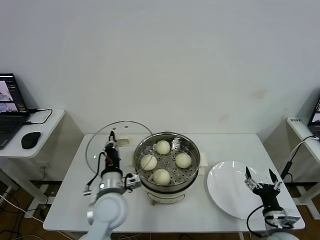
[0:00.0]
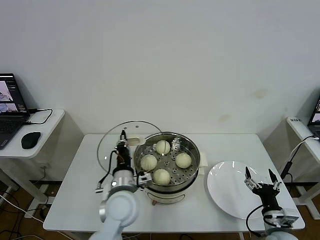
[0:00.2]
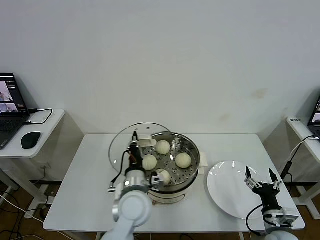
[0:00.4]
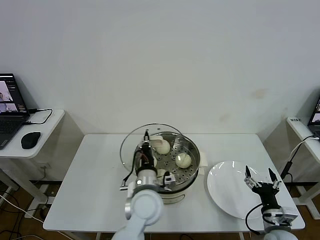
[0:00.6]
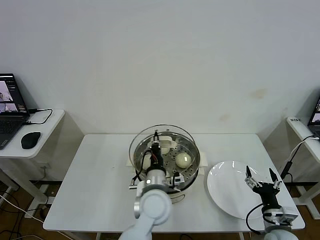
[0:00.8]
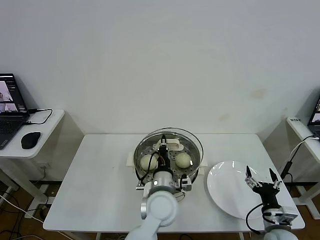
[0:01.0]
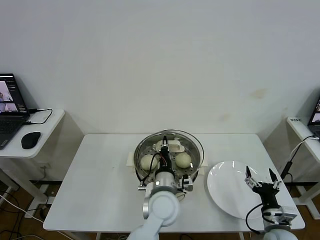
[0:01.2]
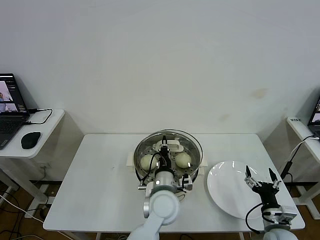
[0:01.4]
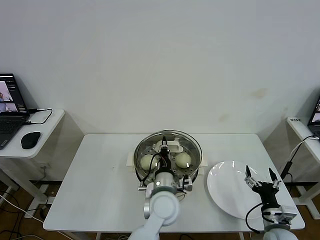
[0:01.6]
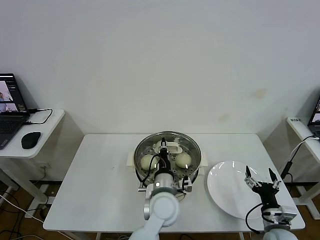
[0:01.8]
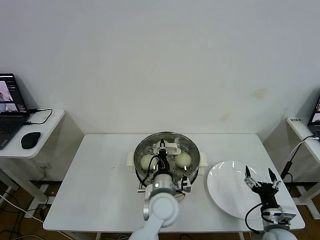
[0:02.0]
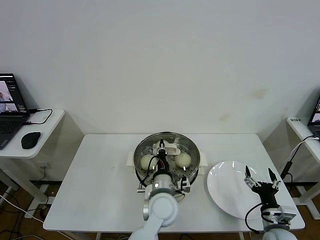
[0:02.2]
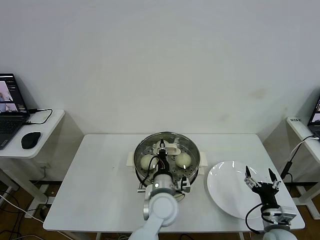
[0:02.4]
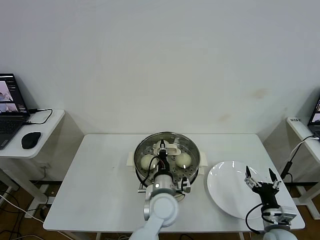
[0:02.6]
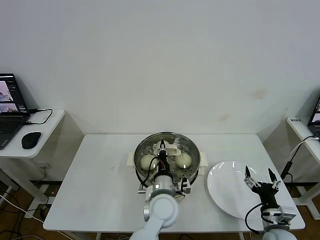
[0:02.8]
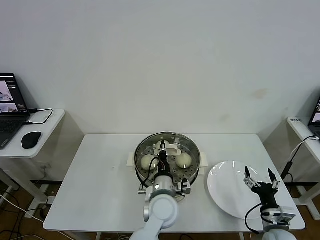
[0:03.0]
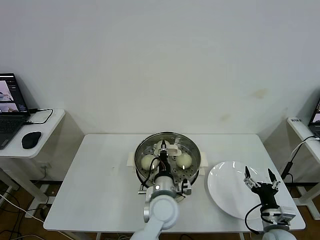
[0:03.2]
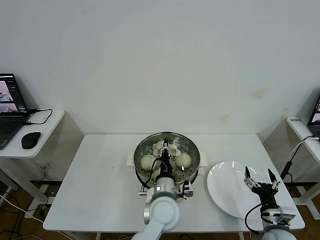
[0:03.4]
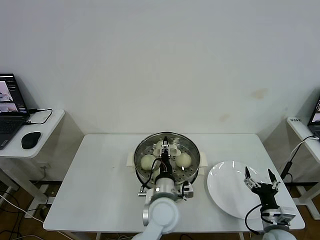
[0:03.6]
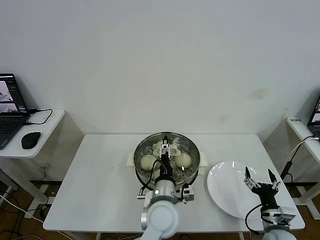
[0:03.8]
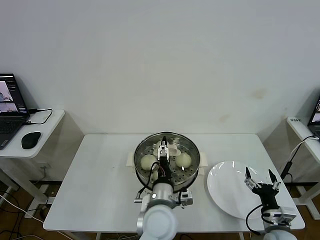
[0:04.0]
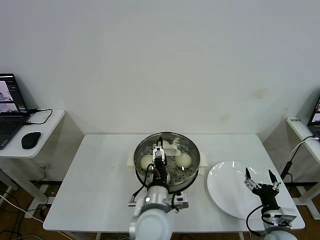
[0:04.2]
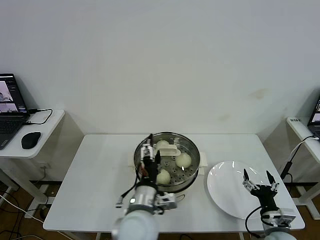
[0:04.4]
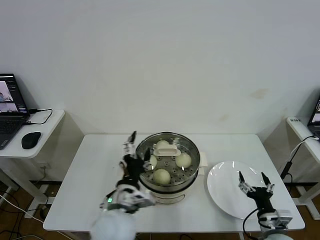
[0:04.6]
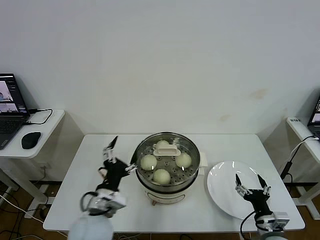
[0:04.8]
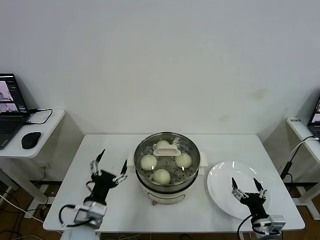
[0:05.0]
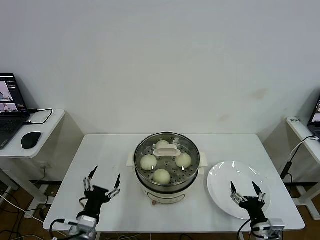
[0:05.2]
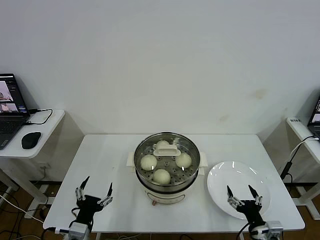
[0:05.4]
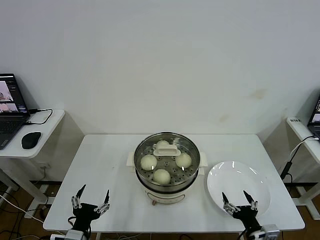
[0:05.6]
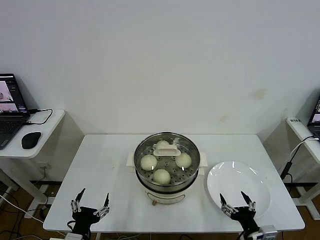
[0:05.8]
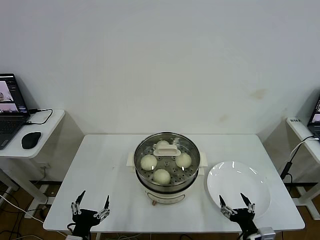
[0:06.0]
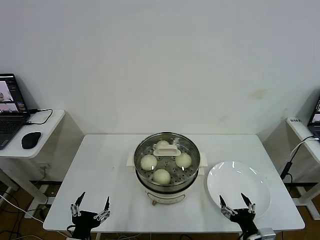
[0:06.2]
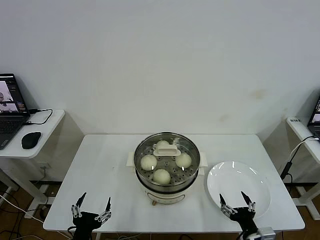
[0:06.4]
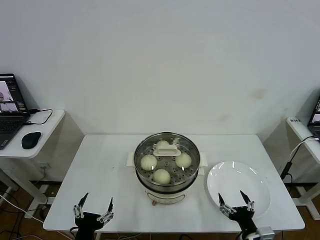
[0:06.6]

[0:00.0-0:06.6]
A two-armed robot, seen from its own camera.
Step, 0:00.0 to 0:03.4: Place the pot lid on the steamer with left gripper.
0:00.0 to 0:01.6: The left gripper is displaced to the right by some 15 cm.
0:01.6 to 0:03.2: There are only small adjustments of the grippers.
0:03.2 to 0:05.0: The left gripper heads to the left, covering about 20 cm, and opens up.
0:05.0 to 0:06.6: The left gripper heads backward, covering approximately 10 cm, while the right gripper shifts by about 5 cm.

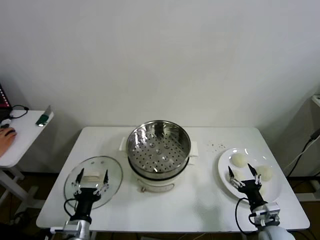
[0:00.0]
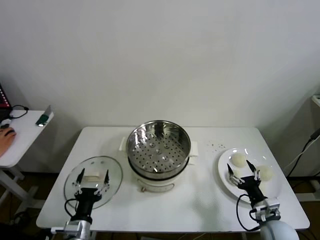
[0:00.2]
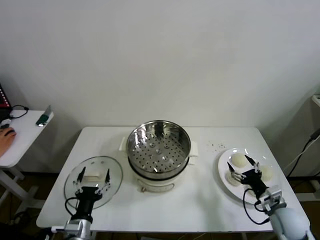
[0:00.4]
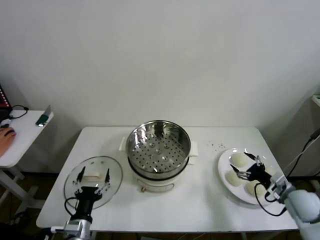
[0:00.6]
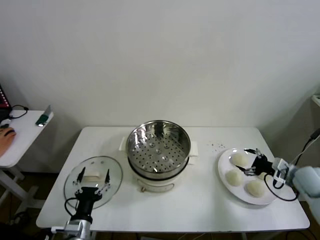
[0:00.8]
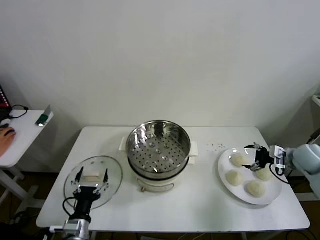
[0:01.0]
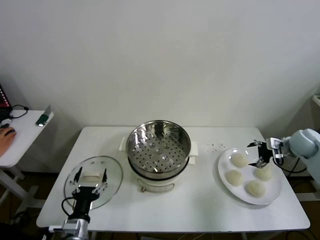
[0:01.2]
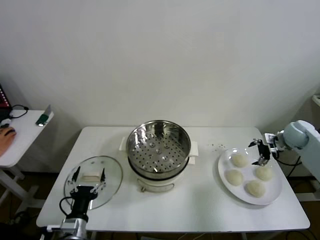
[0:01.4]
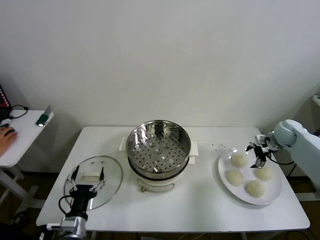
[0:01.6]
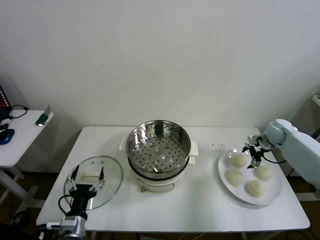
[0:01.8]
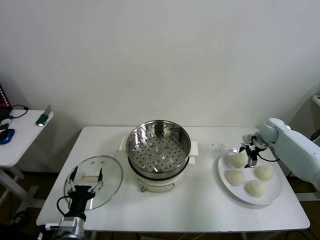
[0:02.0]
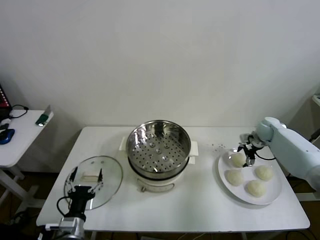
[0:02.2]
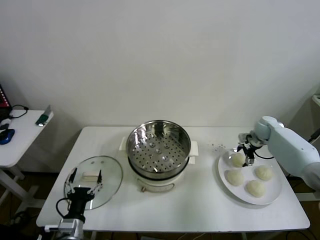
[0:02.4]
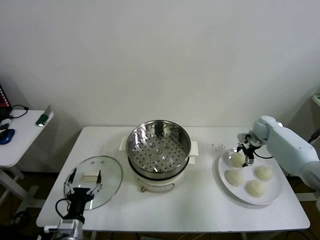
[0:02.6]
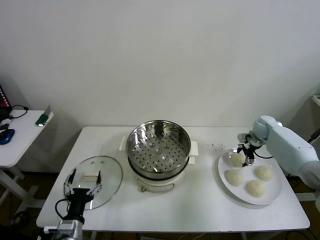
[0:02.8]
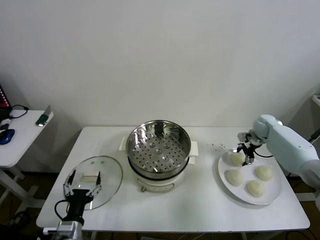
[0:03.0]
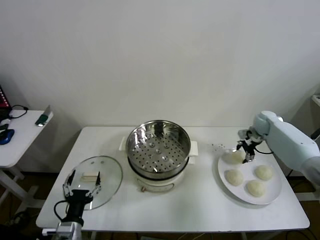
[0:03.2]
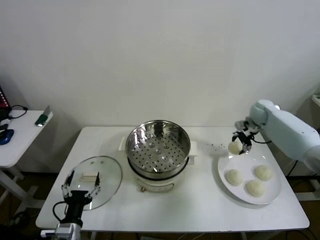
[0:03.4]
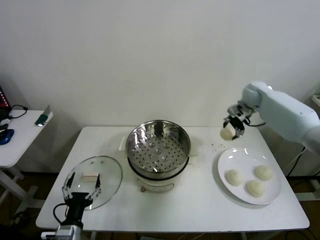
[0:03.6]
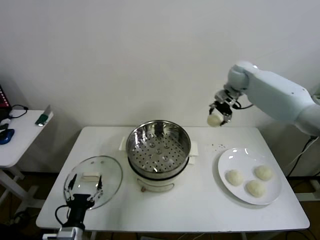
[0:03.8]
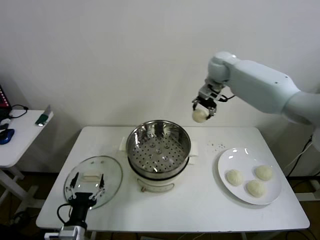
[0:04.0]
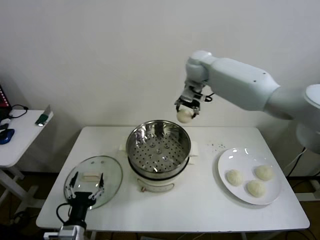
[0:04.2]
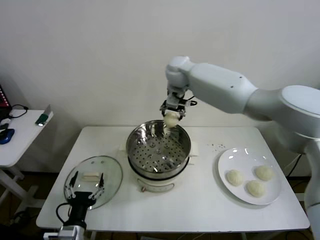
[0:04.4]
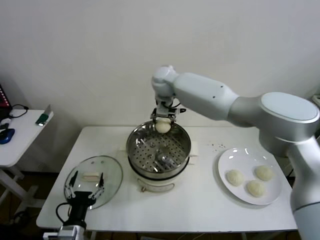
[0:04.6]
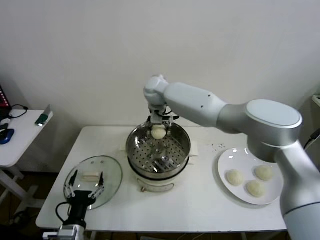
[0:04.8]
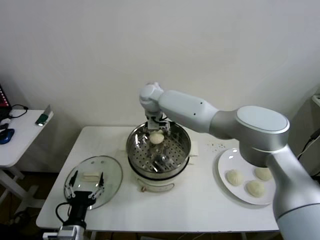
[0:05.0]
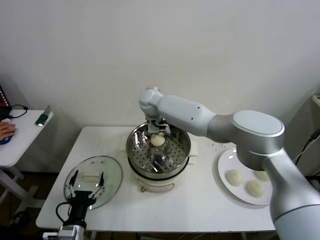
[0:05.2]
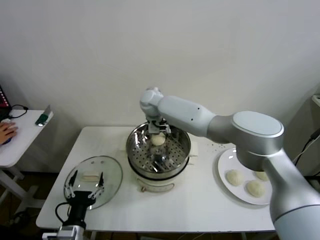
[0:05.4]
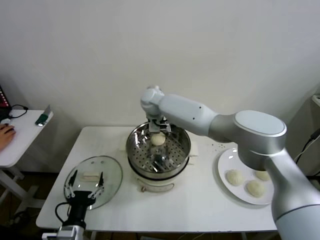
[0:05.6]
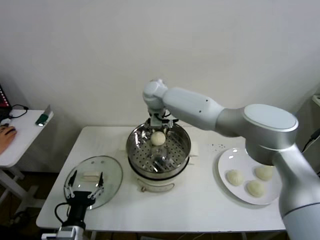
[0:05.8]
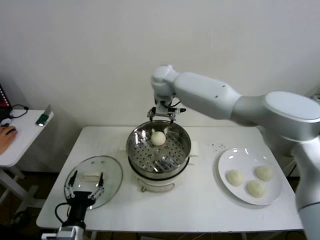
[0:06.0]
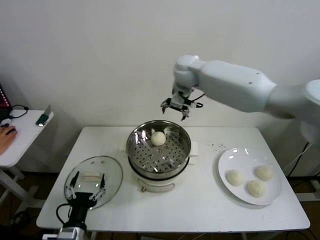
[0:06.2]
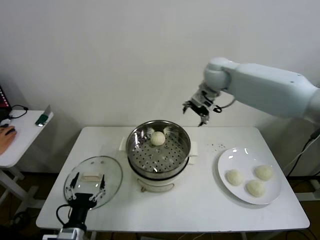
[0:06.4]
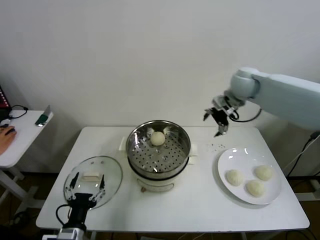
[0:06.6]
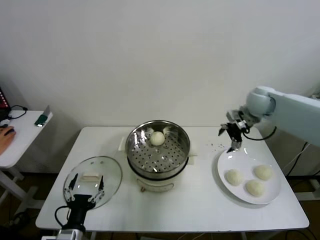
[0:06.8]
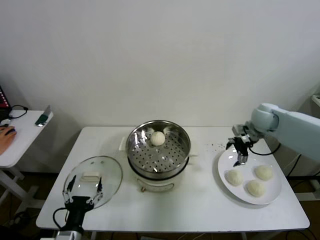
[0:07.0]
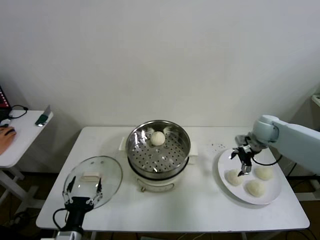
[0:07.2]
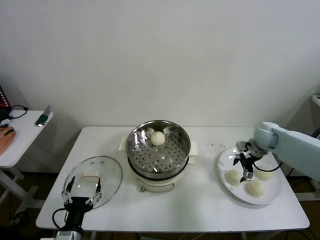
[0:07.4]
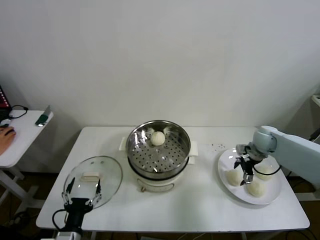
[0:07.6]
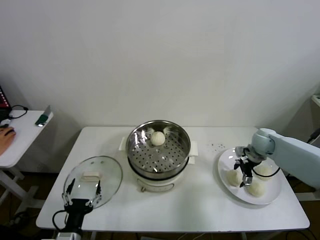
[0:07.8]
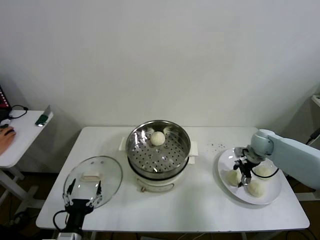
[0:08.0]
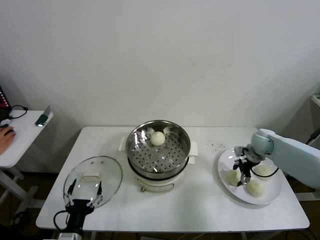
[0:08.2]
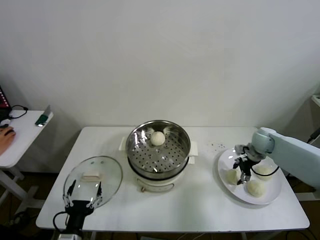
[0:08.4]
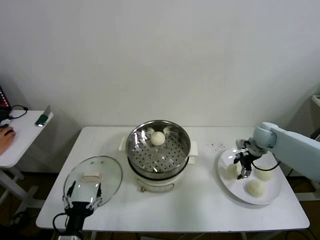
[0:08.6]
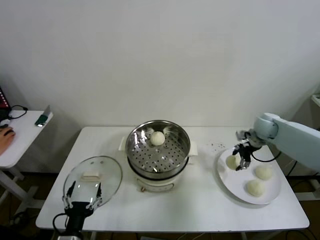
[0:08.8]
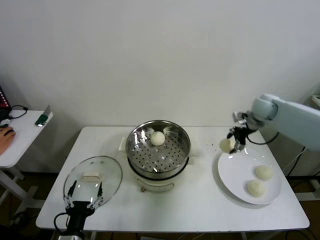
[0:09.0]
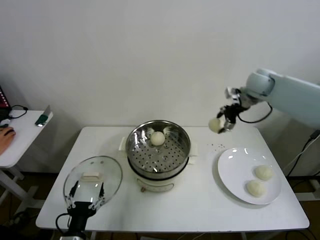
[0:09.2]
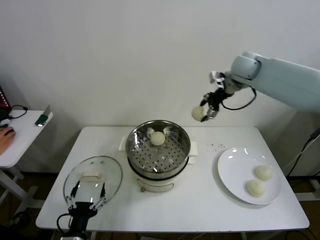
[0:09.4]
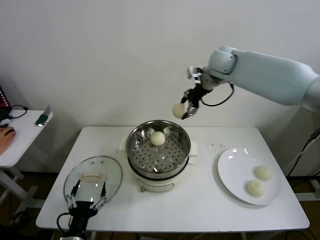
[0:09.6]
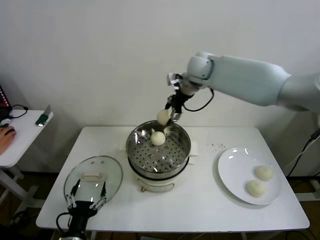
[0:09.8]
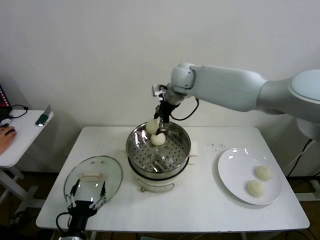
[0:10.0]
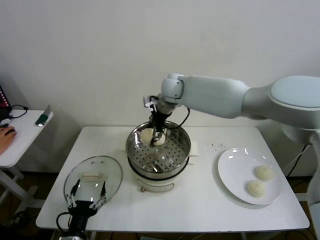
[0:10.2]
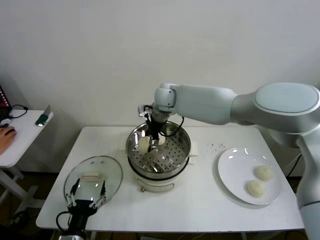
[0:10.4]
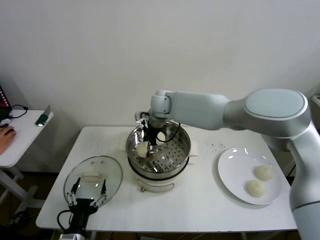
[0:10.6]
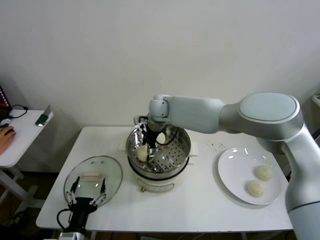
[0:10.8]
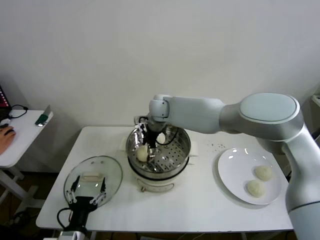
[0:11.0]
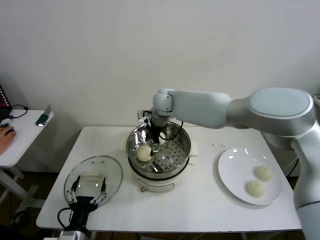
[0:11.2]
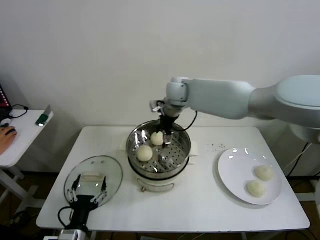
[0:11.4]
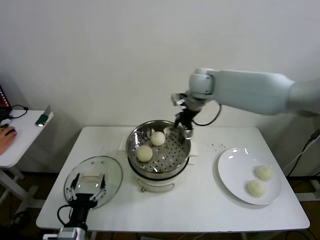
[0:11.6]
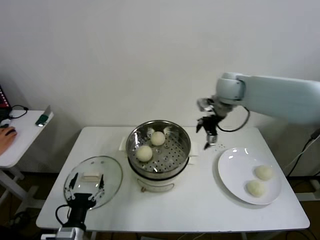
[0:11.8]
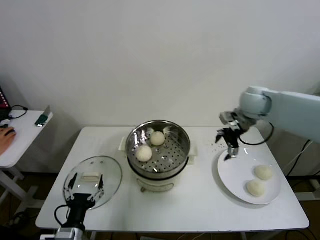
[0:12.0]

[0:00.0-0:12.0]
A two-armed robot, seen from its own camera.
Step, 0:00.0 to 0:02.8: Grasp the baozi in the plate with right gripper.
Step, 0:03.0 to 0:05.2: Place the baozi on the steamer with right gripper.
Step, 0:05.4 to 0:08.2: Grasp the baozi in the plate with right gripper.
Step, 0:08.4 to 0:10.8: Place the baozi on the steamer with right gripper.
0:01.6 to 0:03.0: The right gripper heads forward, covering about 5 cm, and closes its fingers.
0:03.0 to 0:04.4: The right gripper travels to the left and upward by roughly 50 cm.
0:04.4 to 0:06.0: The right gripper goes downward and returns, some 10 cm each way, and opens up.
0:06.0 to 0:07.6: The right gripper moves to the right and downward, roughly 40 cm.
0:07.6 to 0:09.0: The right gripper travels upward and forward by about 20 cm, and closes its fingers.
0:09.0 to 0:10.4: The right gripper heads to the left, covering about 35 cm.
0:10.4 to 0:12.0: The right gripper heads to the right, covering approximately 30 cm, and opens its fingers.

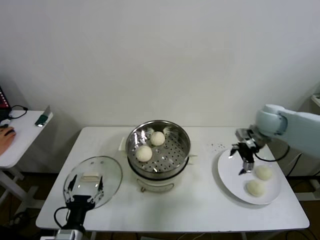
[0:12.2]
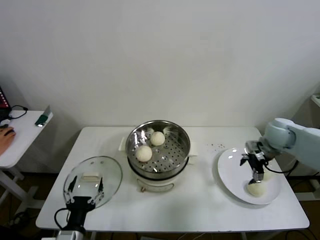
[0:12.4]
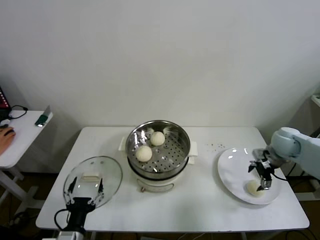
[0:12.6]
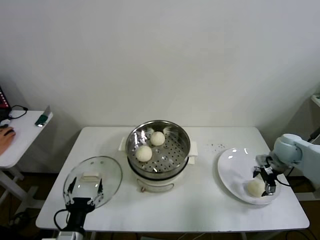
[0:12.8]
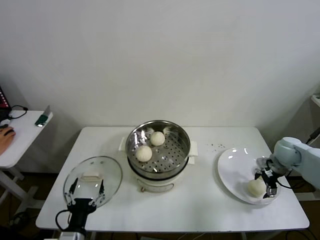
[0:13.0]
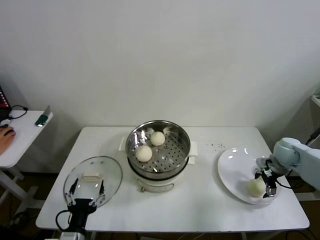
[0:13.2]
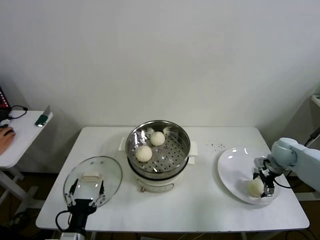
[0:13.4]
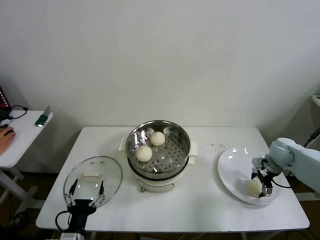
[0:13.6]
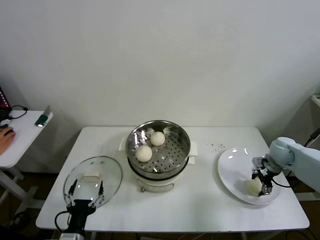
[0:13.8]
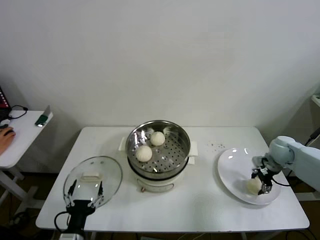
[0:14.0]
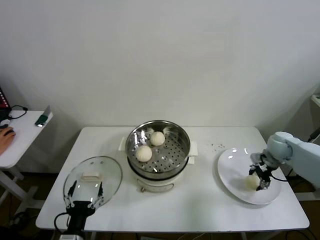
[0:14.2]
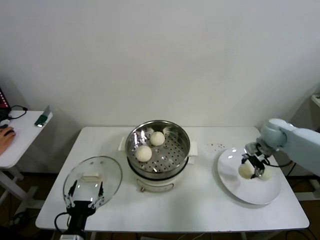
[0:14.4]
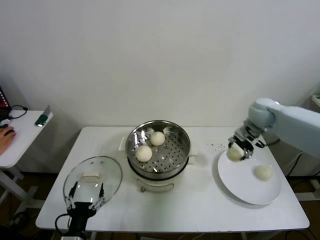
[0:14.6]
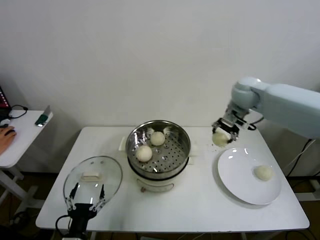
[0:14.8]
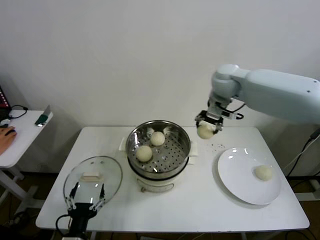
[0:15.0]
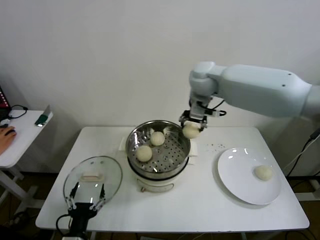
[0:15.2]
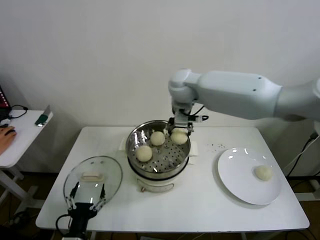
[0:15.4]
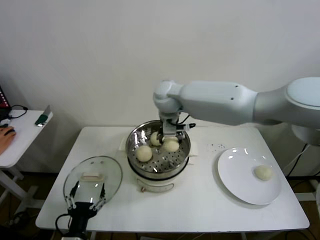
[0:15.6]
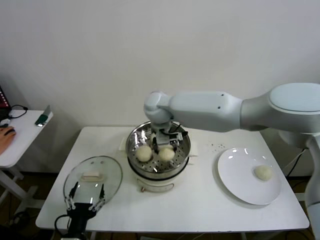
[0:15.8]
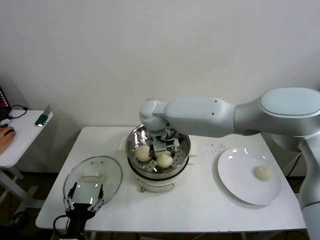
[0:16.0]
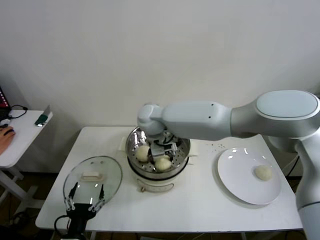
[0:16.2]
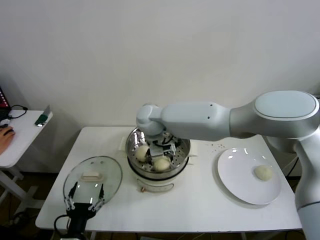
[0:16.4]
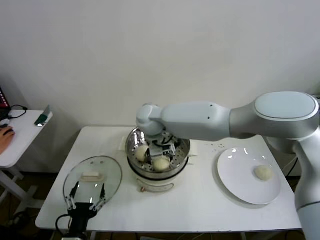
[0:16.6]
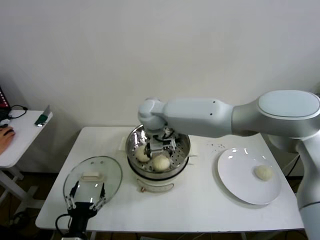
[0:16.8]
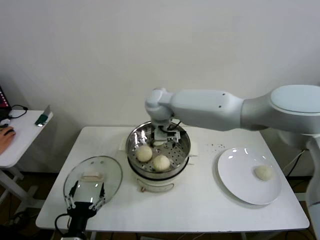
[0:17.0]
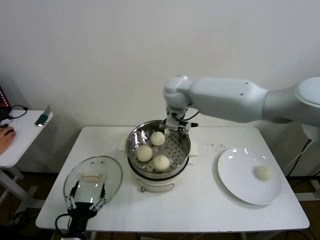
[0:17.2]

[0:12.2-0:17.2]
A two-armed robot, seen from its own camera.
Step, 0:12.2 to 0:13.8: Grasp the baozi in the plate with right gripper.
Step, 0:14.0 to 0:16.6: Place the baozi on the steamer with right gripper.
0:12.2 to 0:13.8: The right gripper goes about 15 cm downward and to the right, and closes its fingers.
0:13.8 to 0:15.6: The right gripper is displaced to the left and upward by approximately 50 cm.
0:15.6 to 0:17.2: The right gripper moves to the right, some 5 cm, and opens up.
